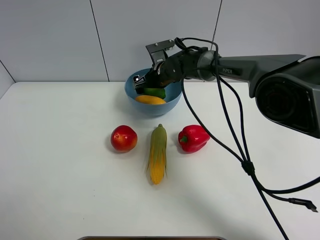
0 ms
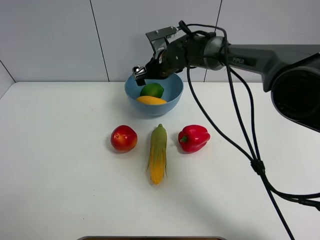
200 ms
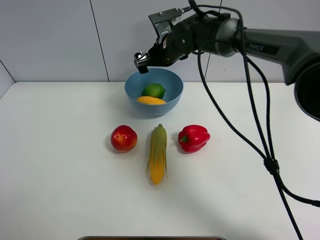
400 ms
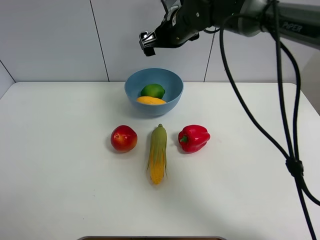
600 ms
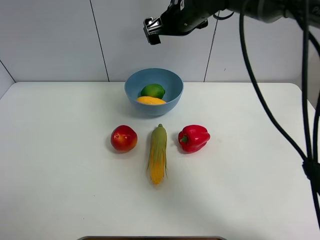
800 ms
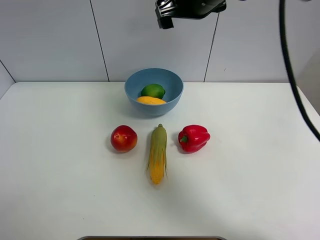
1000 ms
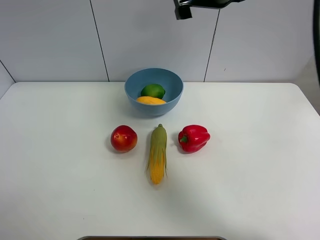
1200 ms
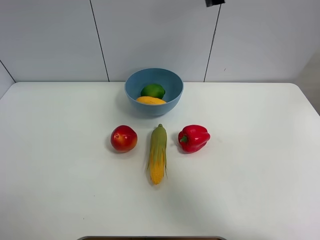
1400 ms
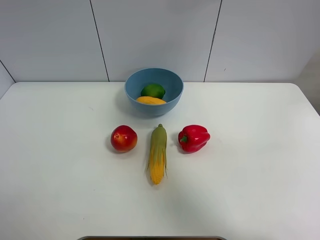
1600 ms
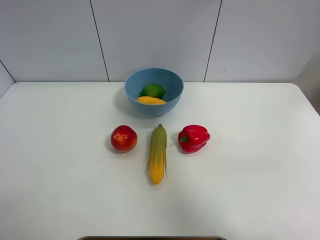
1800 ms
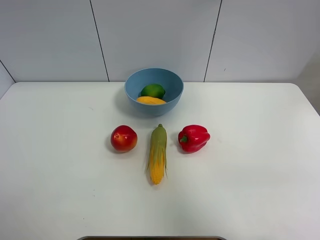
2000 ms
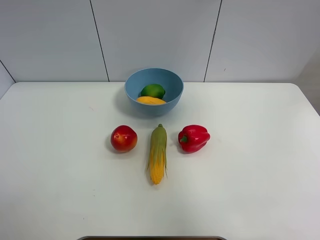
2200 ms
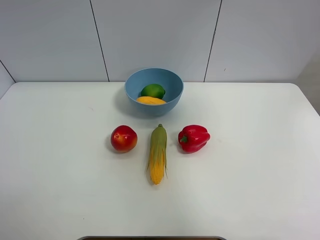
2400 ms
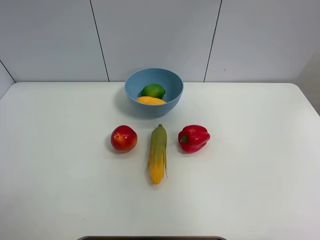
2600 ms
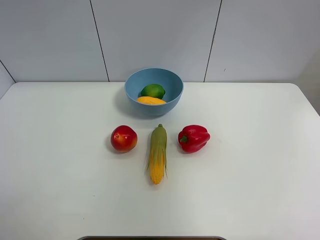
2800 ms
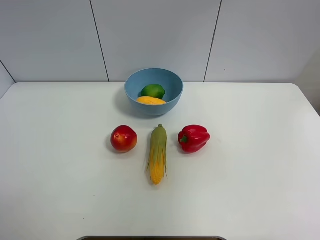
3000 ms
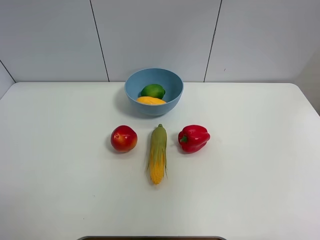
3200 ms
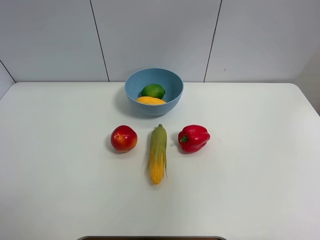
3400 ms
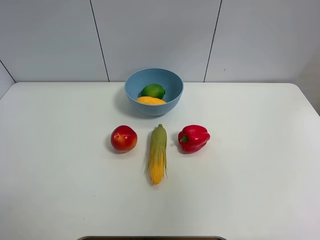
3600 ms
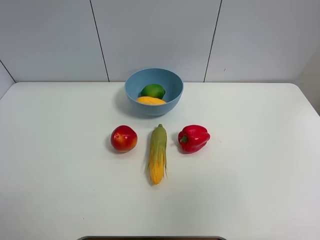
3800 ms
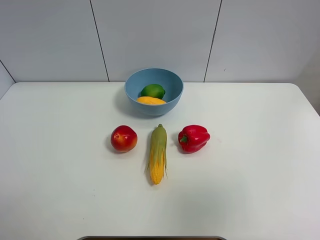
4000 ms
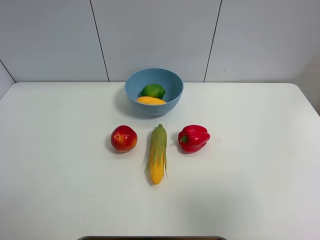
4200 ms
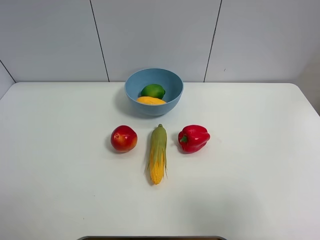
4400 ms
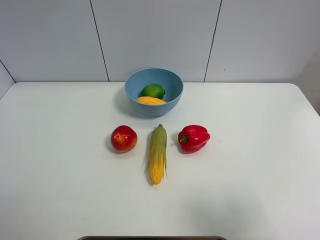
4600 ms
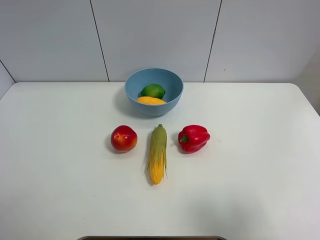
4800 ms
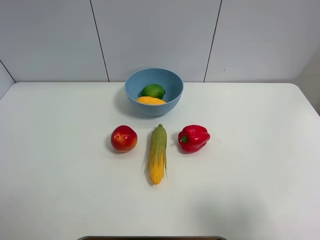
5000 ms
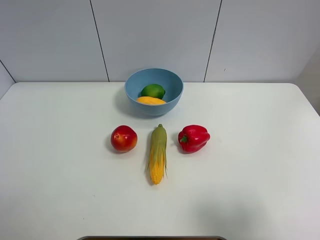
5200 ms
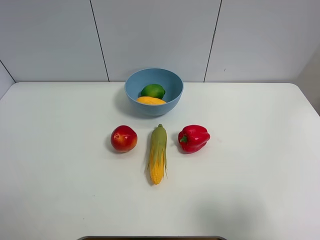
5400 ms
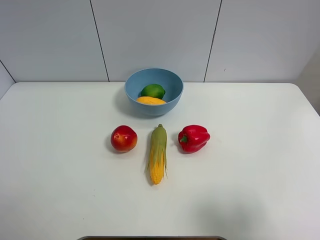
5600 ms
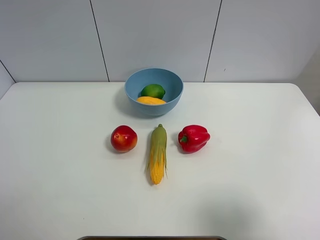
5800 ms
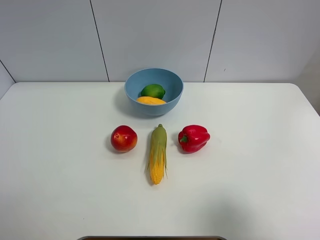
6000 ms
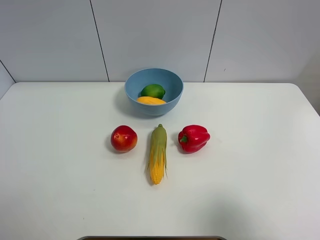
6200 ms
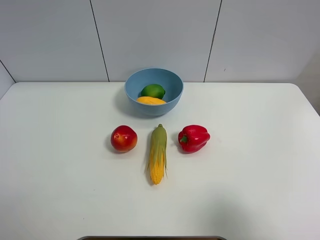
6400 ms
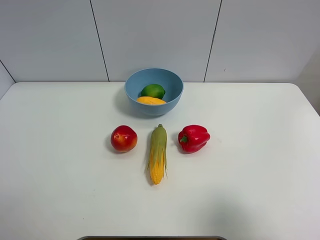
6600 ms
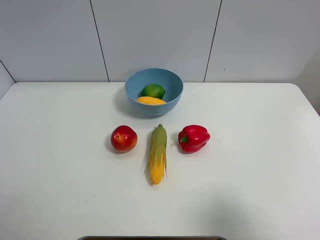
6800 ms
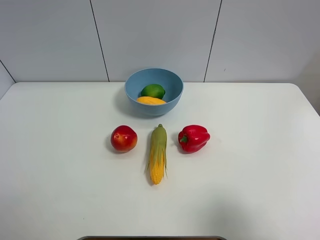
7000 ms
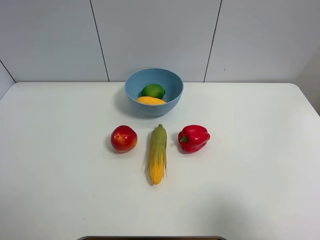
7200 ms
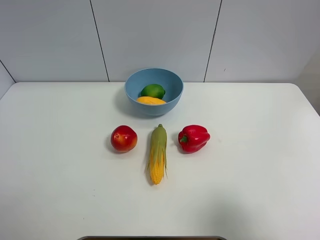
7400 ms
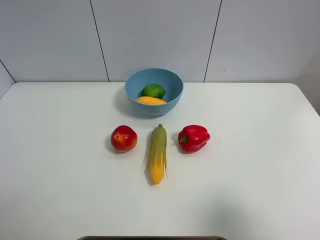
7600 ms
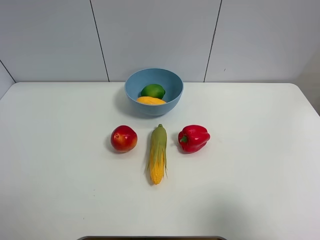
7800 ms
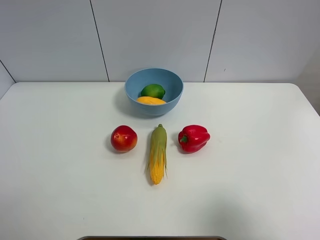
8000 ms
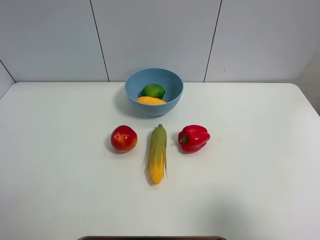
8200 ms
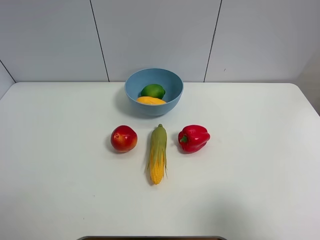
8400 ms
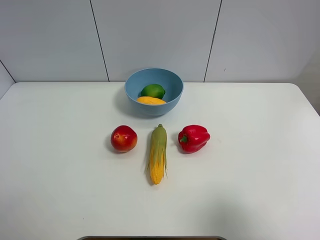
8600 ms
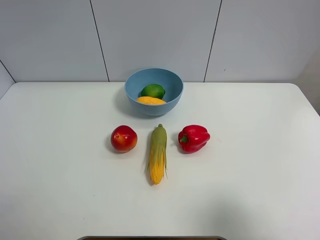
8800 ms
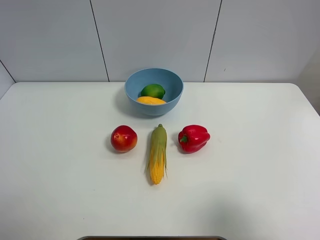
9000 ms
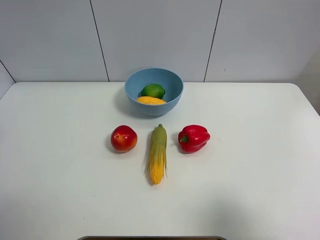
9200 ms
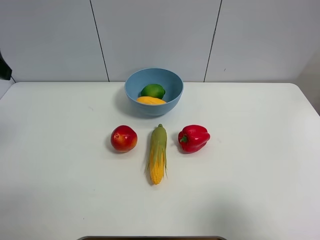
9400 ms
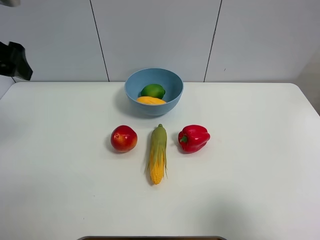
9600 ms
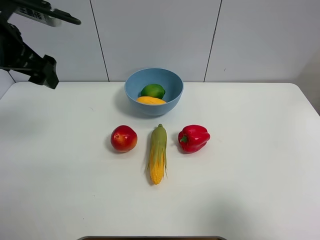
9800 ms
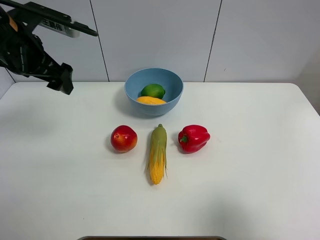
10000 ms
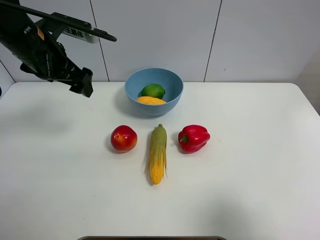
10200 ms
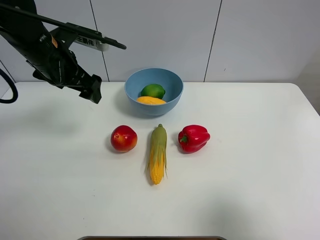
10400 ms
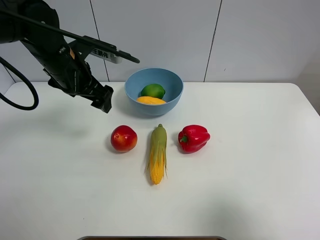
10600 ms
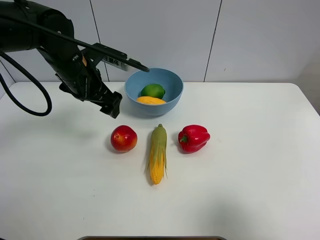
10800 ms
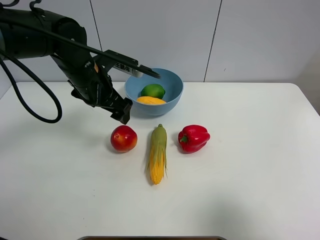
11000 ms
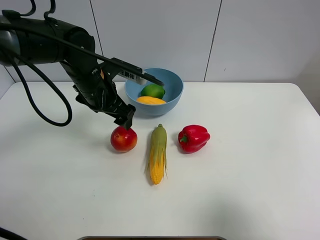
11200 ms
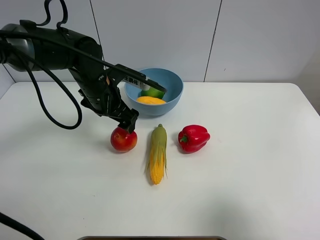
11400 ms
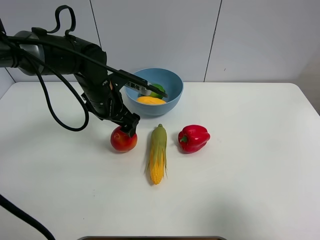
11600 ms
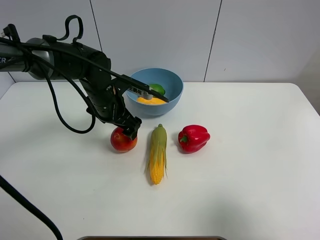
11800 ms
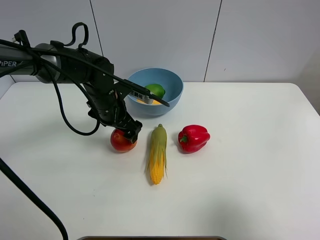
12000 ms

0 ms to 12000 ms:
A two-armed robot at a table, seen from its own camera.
Task of the whole recording: Put the three fruits on the table into a bowl.
0 ms to 1600 ms: The right gripper goes approximately 35 cm upward and to the right.
1600 ms to 3000 ms: The right gripper heads backward and upward, covering about 30 cm.
3000 ms to 4400 ms: The right gripper shifts some 25 cm downward.
6000 ms to 7600 ms: Both grippers stay put.
9000 ms to 10400 ms: The left gripper heads forward, to the right and downward, covering approximately 25 cm.
10400 ms to 12000 ms: The left gripper is displaced downward and to the right by approximately 15 cm.

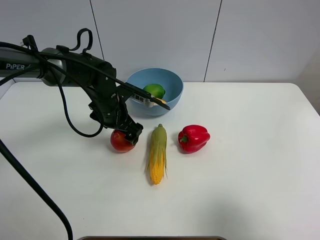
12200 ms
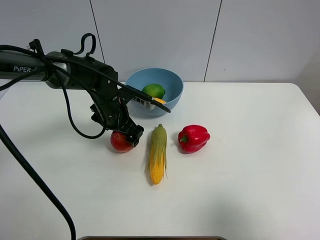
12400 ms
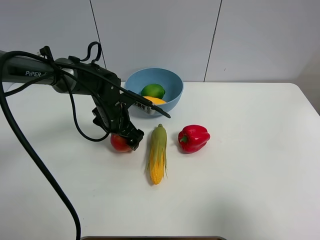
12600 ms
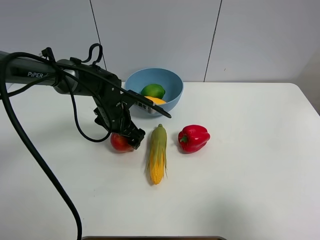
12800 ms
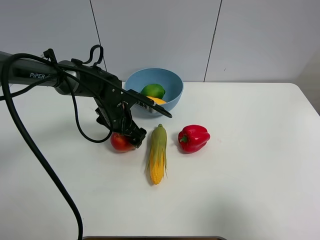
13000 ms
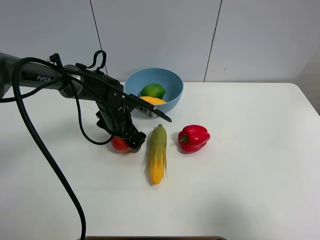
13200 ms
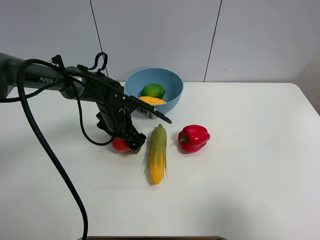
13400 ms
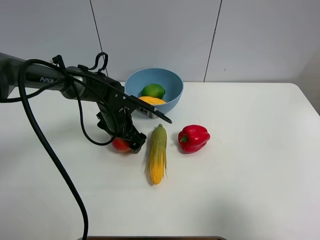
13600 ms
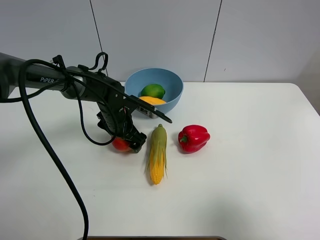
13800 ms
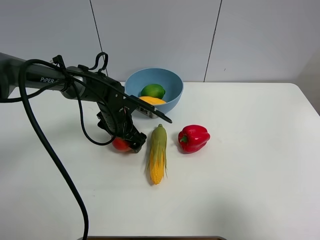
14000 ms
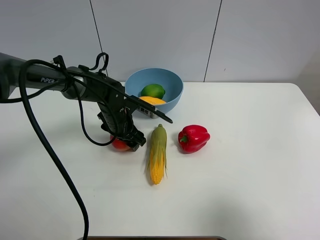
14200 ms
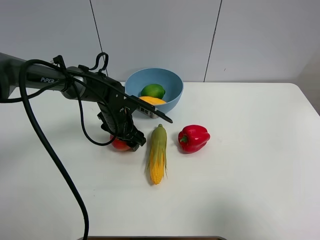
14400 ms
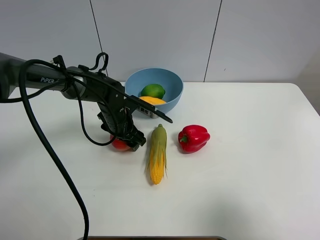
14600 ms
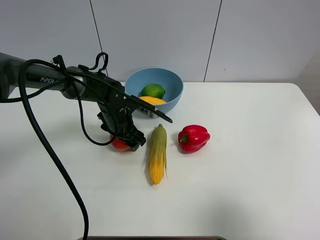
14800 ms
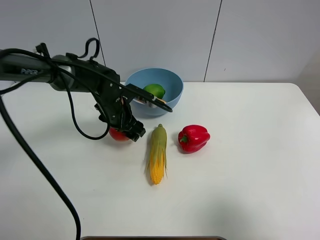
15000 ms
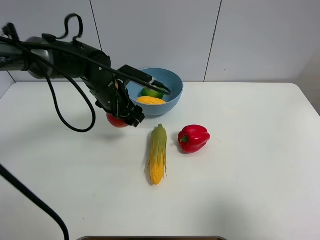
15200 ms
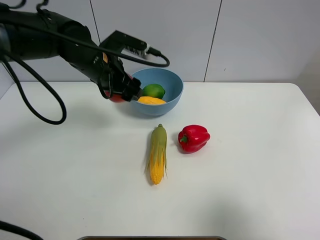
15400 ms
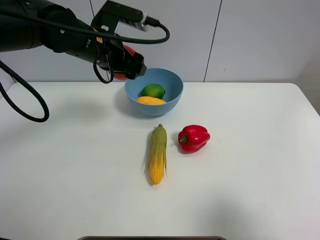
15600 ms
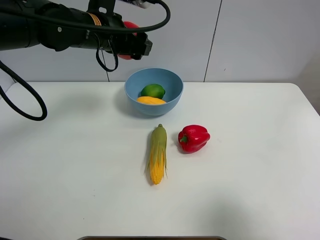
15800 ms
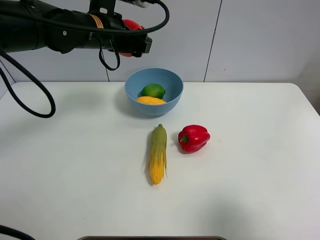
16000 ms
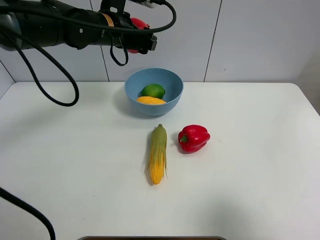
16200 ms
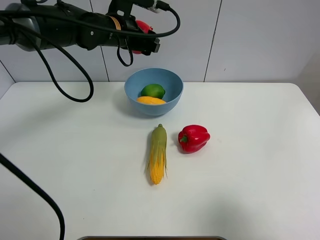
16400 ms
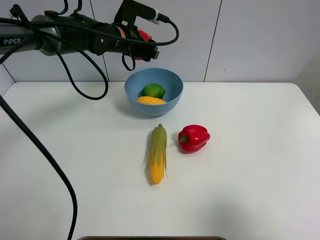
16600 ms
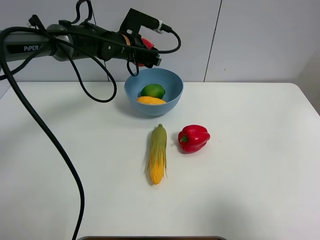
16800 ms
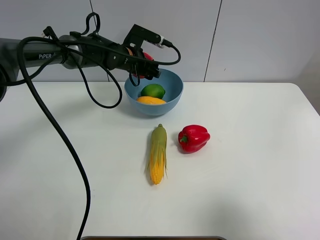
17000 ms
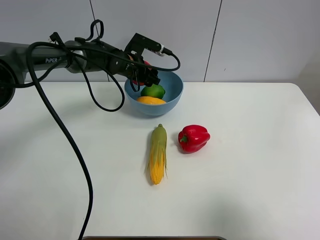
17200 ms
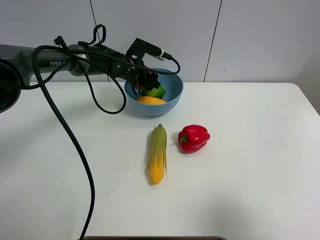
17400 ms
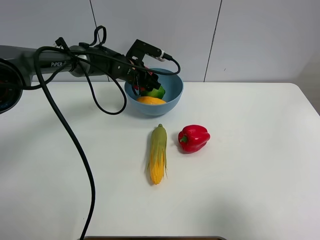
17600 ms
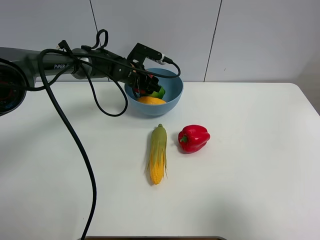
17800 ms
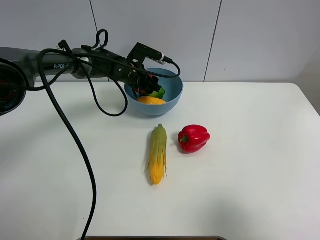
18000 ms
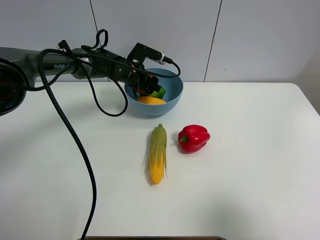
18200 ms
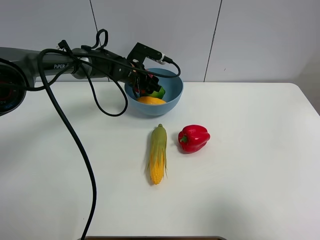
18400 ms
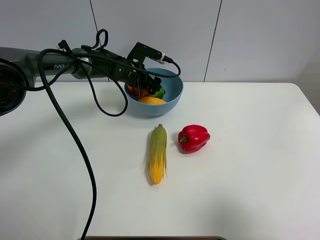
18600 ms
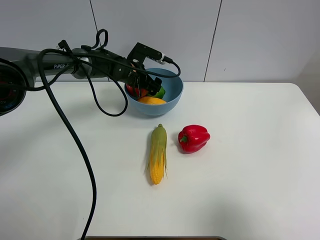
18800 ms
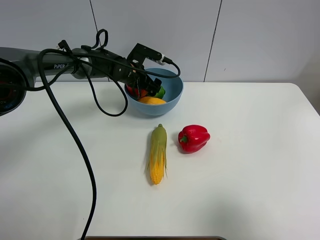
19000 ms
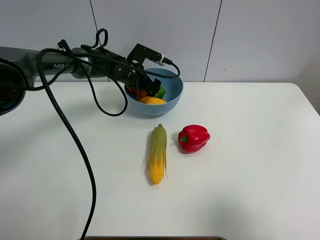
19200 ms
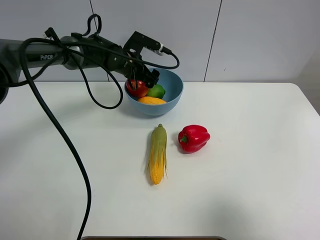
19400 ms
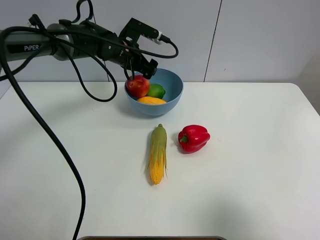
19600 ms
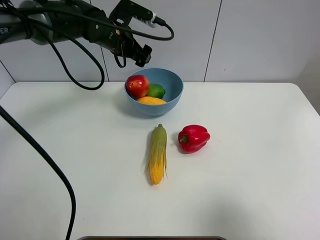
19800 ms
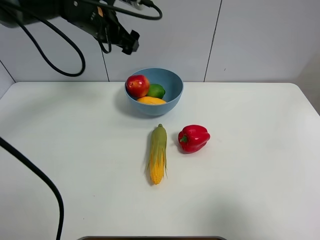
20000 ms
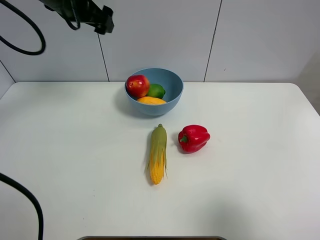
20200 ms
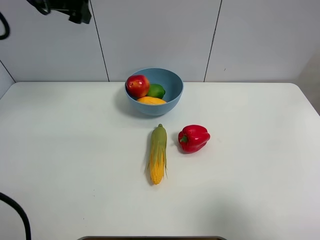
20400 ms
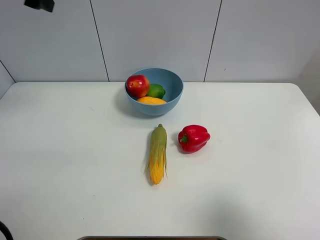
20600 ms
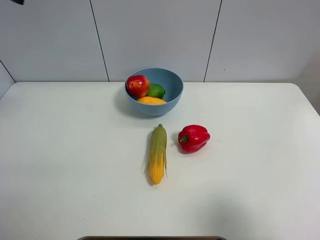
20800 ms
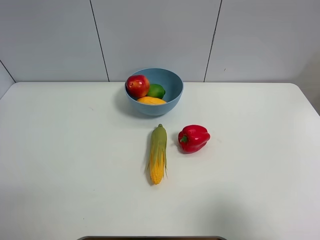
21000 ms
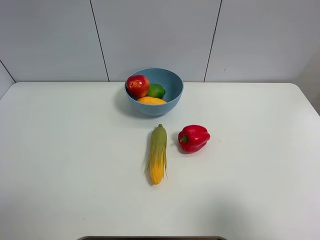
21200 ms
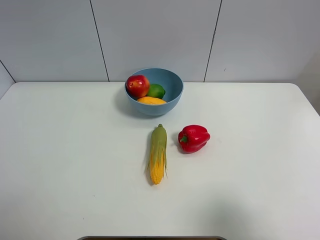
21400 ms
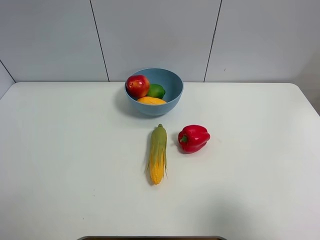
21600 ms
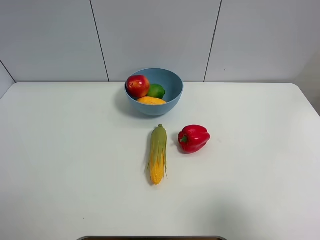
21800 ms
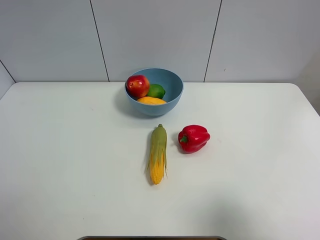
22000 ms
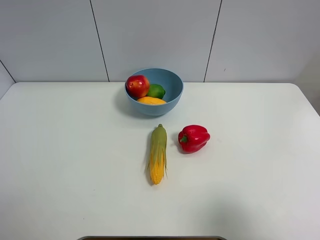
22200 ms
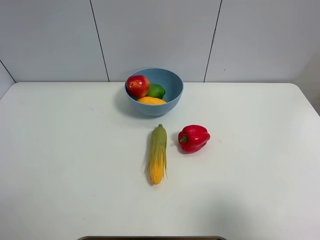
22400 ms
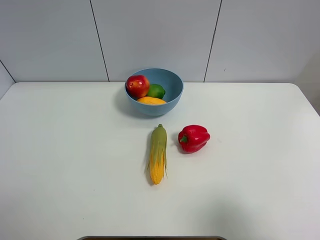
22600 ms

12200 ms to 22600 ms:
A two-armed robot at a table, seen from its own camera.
Task of the whole recording: Put the three fruits on the table into a bowl.
Step, 12200 ms to 14200 ms: Grasp the pomegranate with left gripper.
Step, 14400 ms to 19400 ms: Place the pomegranate in the blue bowl with left gripper.
12200 ms to 13600 ms: The left gripper is displaced downward by approximately 5 cm.
13600 ms to 15200 ms: The left gripper shifts approximately 10 cm upward, and closes.
15200 ms to 16600 ms: The left gripper shifts some 10 cm forward and upward.
16600 ms to 18200 ms: The left gripper moves downward, some 10 cm.
18200 ms to 19600 ms: The left gripper travels upward by about 10 cm, and opens.
19600 ms to 21200 ms: The left gripper is displaced upward, to the left and backward by about 40 cm.
